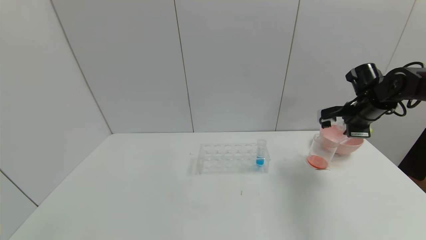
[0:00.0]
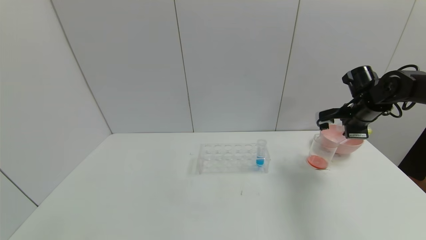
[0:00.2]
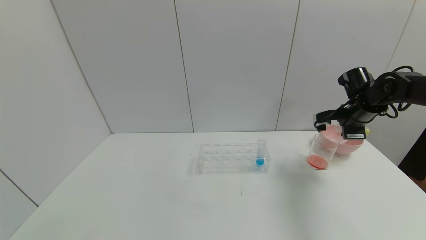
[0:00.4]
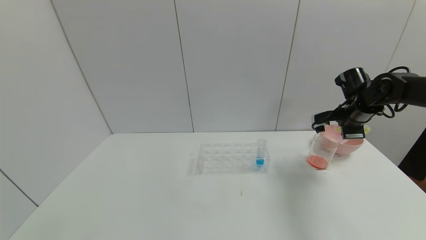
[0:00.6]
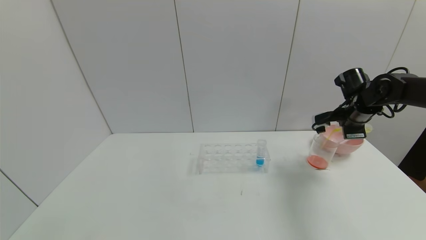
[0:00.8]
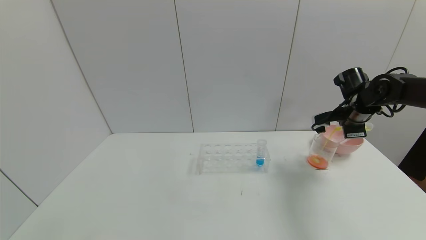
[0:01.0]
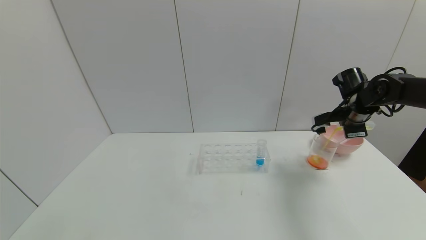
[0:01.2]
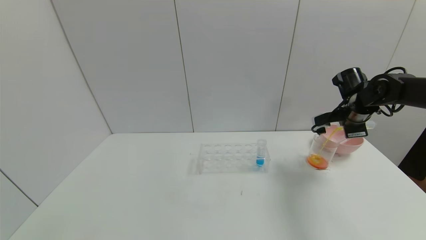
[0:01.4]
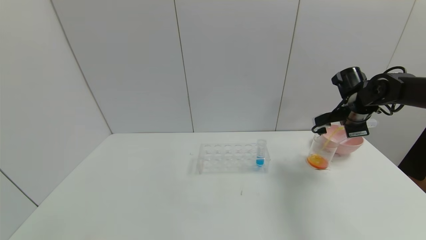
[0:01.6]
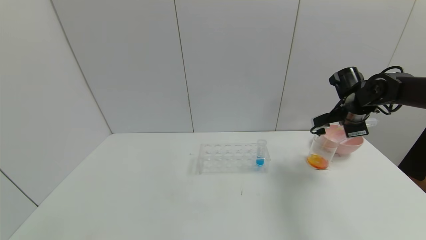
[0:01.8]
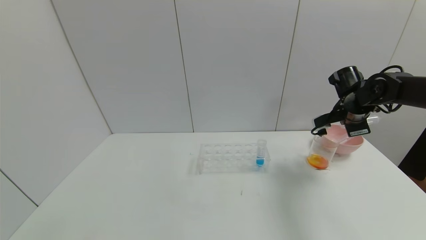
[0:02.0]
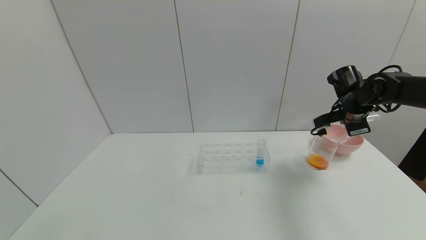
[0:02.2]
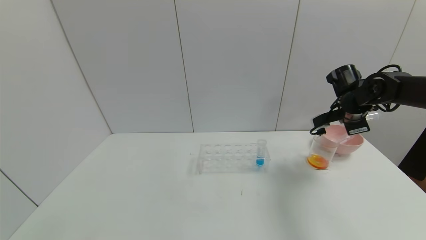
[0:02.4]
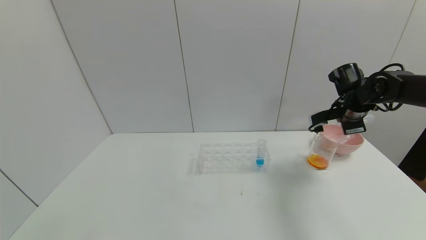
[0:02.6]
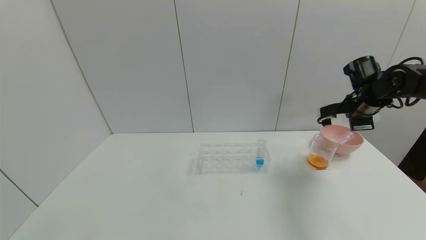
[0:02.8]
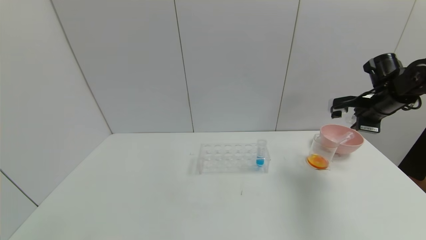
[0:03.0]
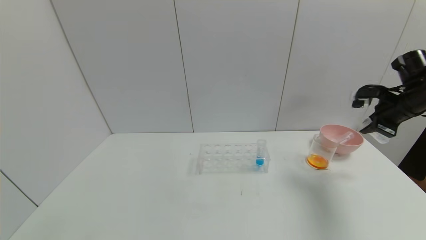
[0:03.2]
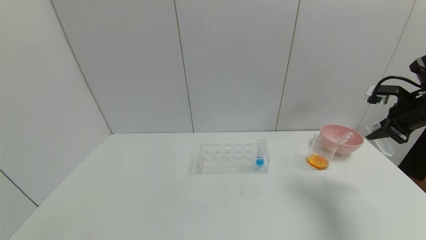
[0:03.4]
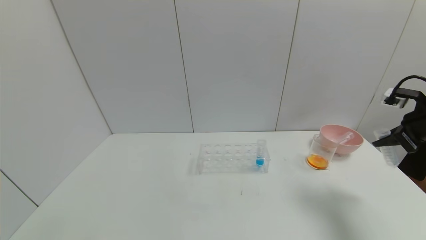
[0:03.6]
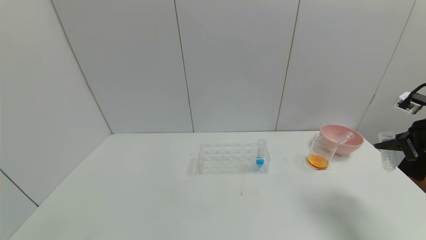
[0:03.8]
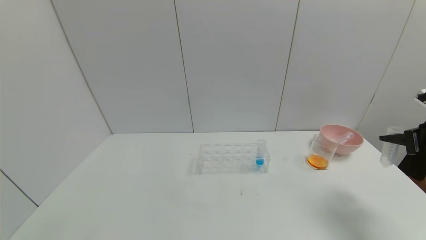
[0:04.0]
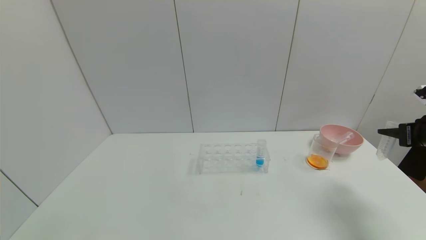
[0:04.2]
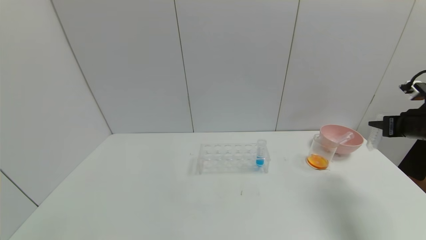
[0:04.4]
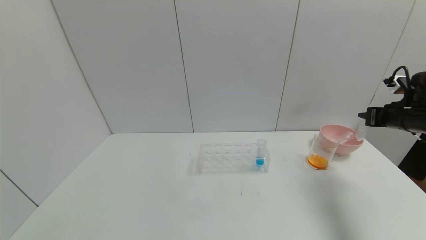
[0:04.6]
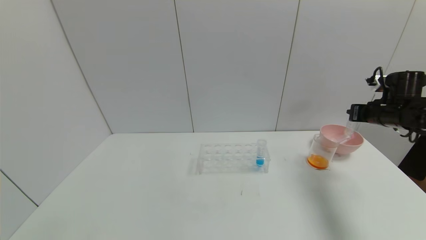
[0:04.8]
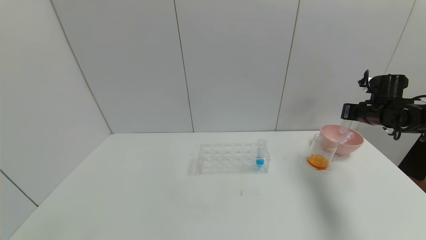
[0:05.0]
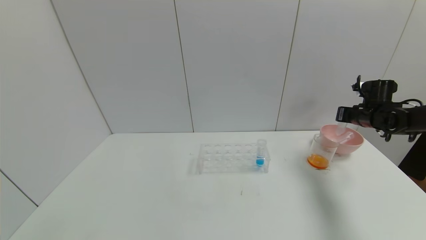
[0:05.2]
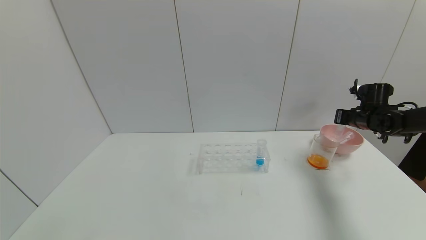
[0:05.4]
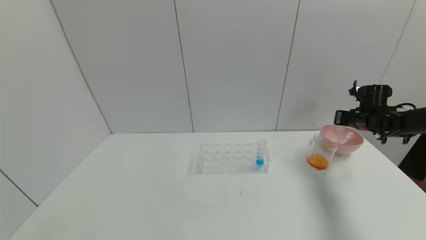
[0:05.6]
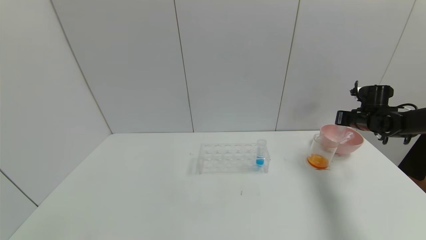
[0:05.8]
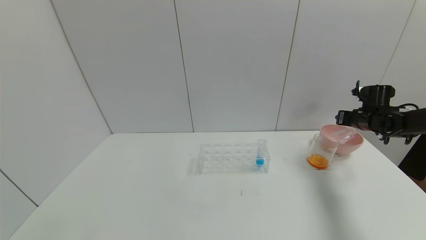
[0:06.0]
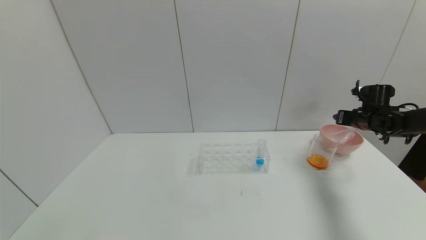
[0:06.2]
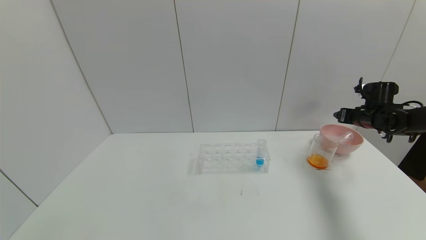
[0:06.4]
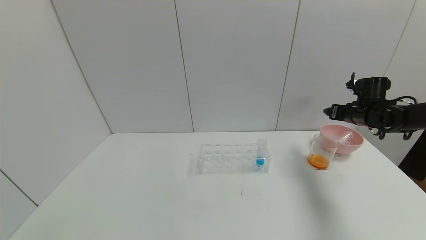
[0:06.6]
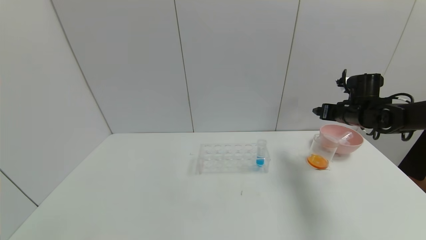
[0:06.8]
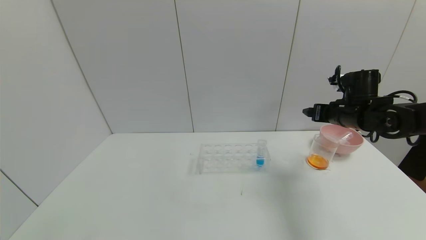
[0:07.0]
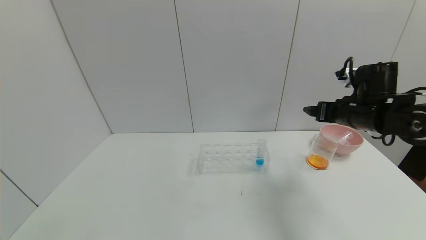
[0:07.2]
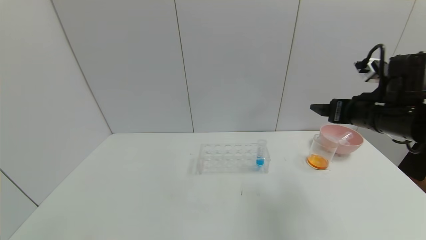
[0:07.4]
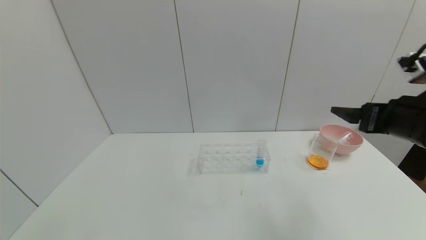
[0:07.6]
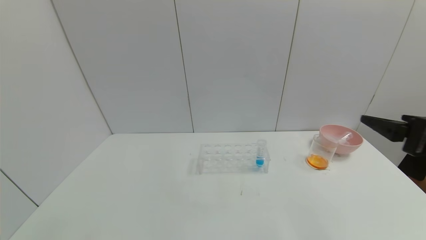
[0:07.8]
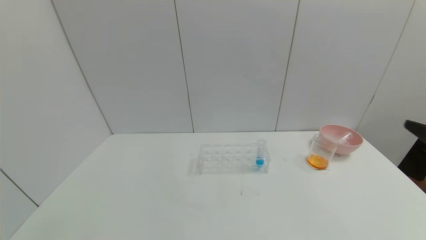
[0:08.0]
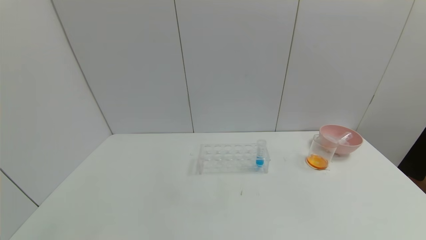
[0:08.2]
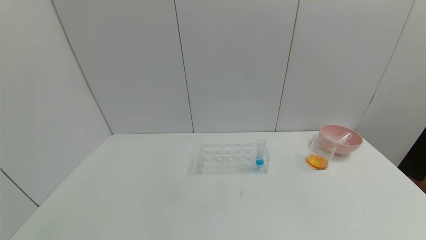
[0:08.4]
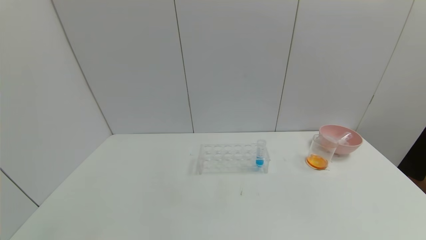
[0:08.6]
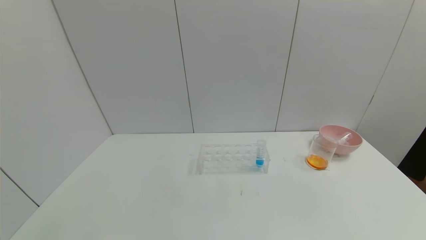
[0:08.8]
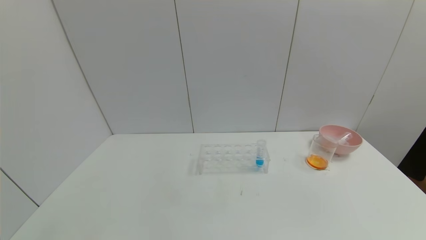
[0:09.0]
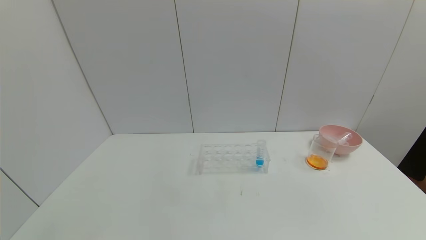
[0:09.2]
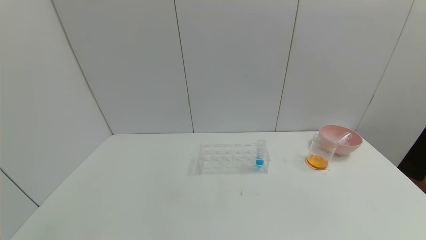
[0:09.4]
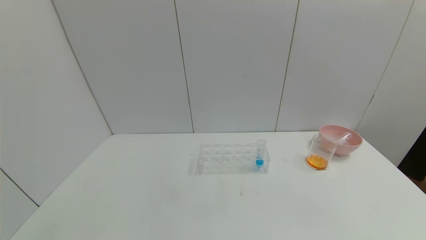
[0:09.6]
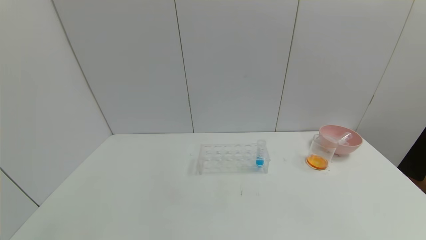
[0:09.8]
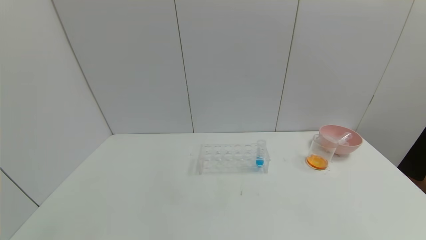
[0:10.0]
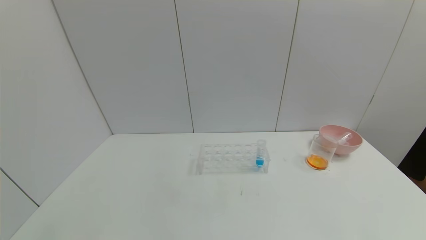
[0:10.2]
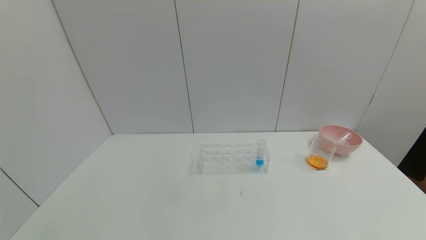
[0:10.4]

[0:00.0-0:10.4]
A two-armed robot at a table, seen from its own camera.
Task of the whole recording: pick up the test tube with yellow pigment and the test tube with red pigment by grippers and pour them into the beaker.
Step, 0:00.0 to 0:04.8: Pour the yellow reagent into the graduated cylinder with right gripper.
Step, 0:05.0 to 0:08.0: Place the test tube into the bowl with right gripper.
0:00.0 to 0:01.4: The grippers move only a little.
0:01.4 to 0:03.0: The right gripper moves some 5 cm.
0:03.0 to 0:04.4: The right gripper goes some 10 cm backward and to the right.
0:04.4 to 0:06.0: The right gripper moves forward and downward, roughly 15 cm.
0:06.0 to 0:07.4: The right gripper is displaced backward, to the left and upward by roughly 25 cm, and opens.
0:07.4 to 0:09.0: The right gripper moves backward, approximately 35 cm.
